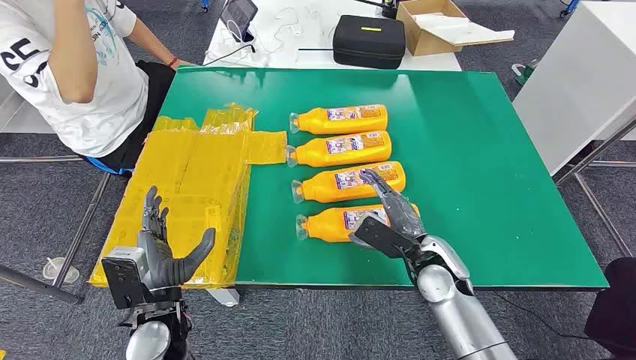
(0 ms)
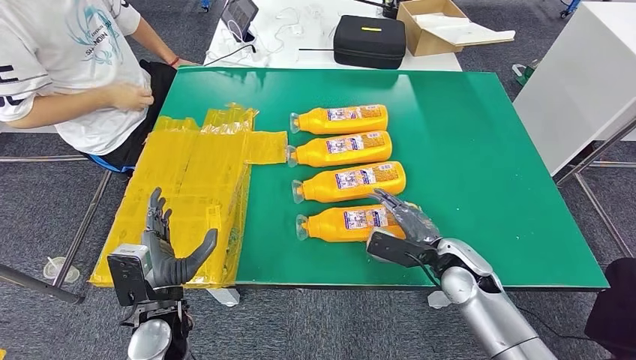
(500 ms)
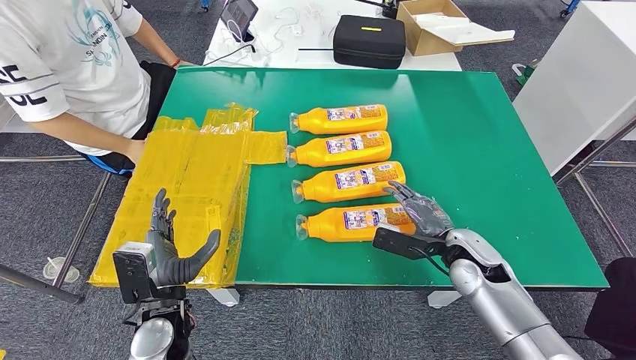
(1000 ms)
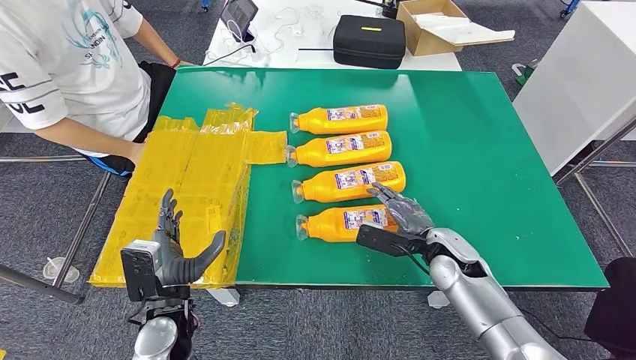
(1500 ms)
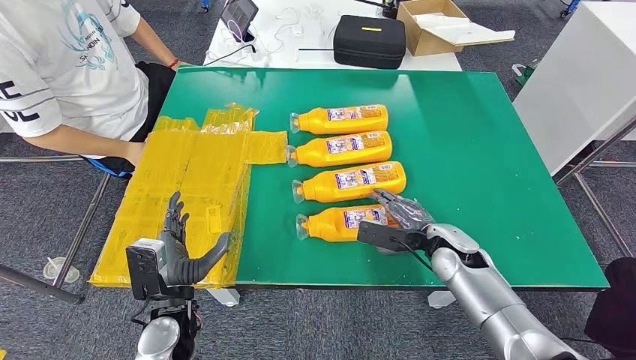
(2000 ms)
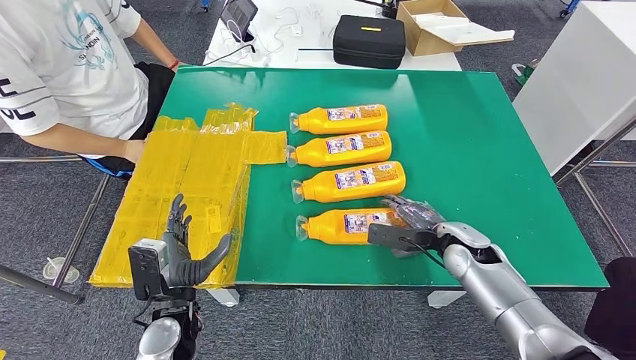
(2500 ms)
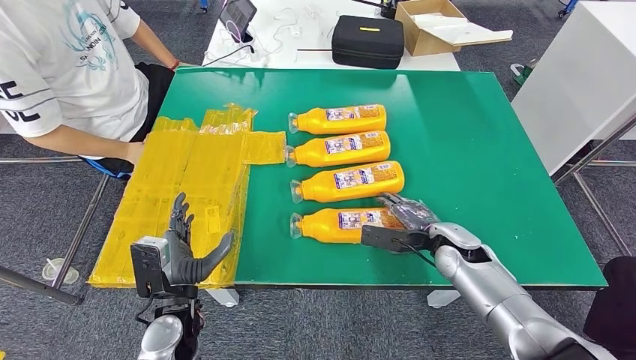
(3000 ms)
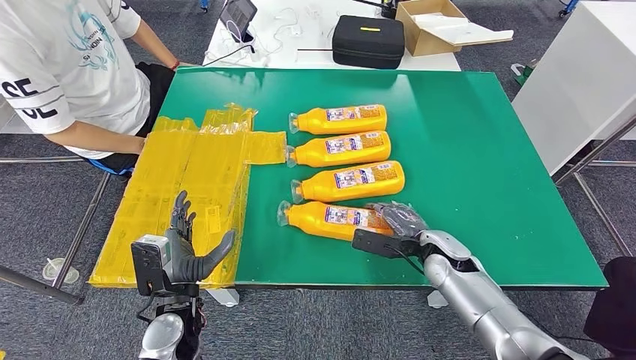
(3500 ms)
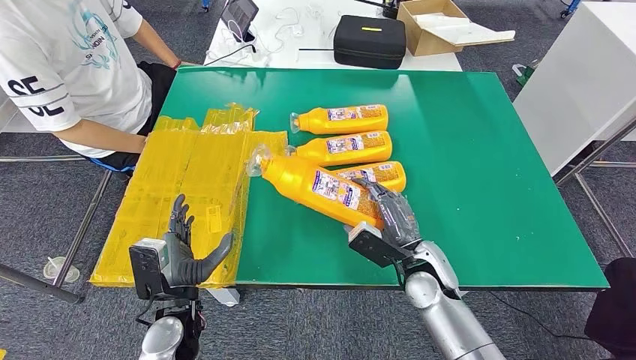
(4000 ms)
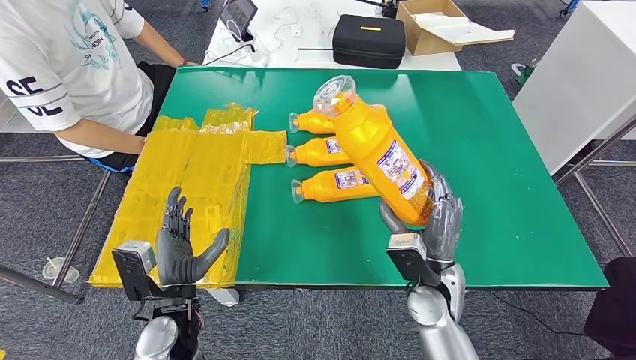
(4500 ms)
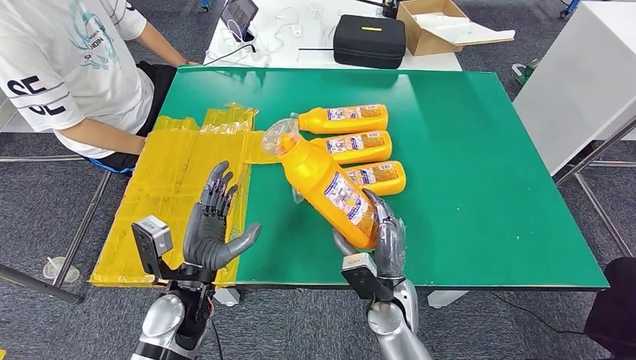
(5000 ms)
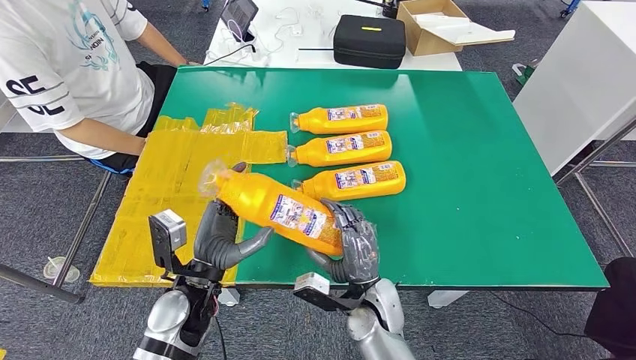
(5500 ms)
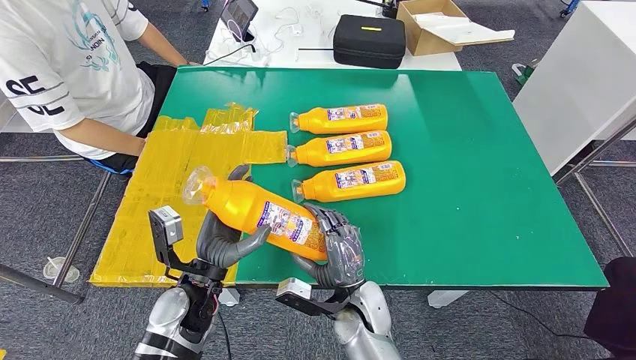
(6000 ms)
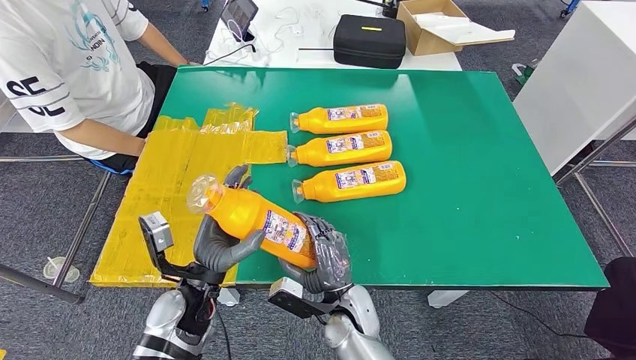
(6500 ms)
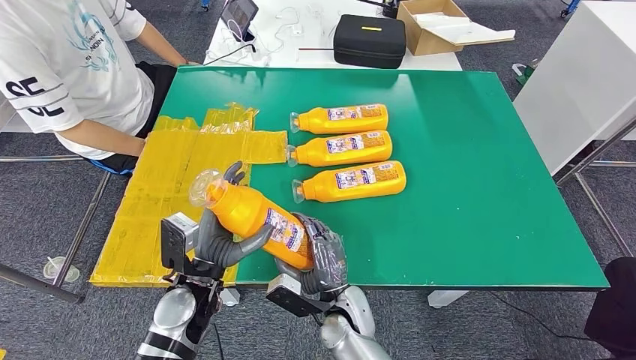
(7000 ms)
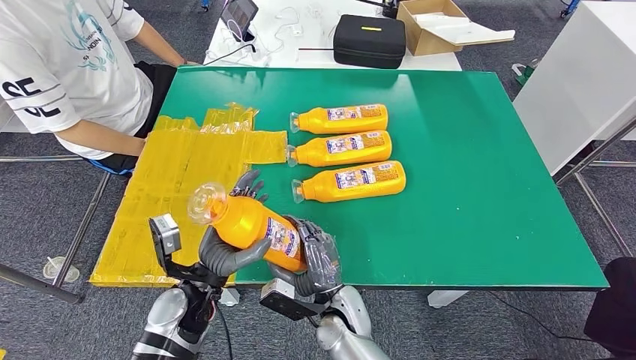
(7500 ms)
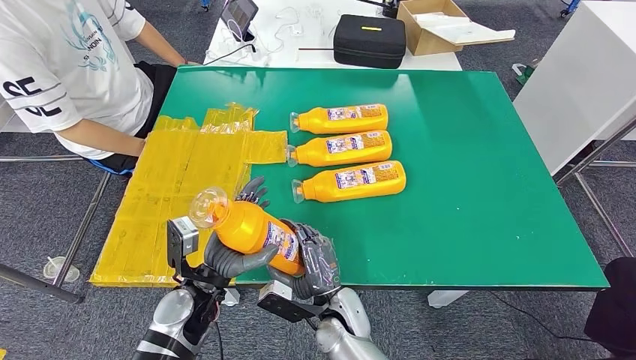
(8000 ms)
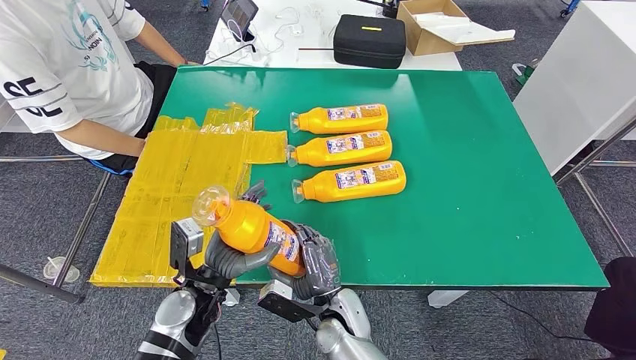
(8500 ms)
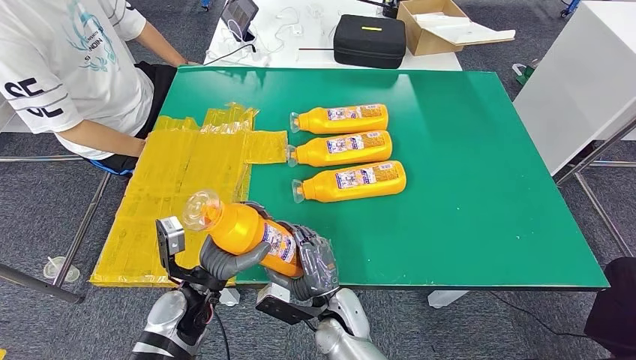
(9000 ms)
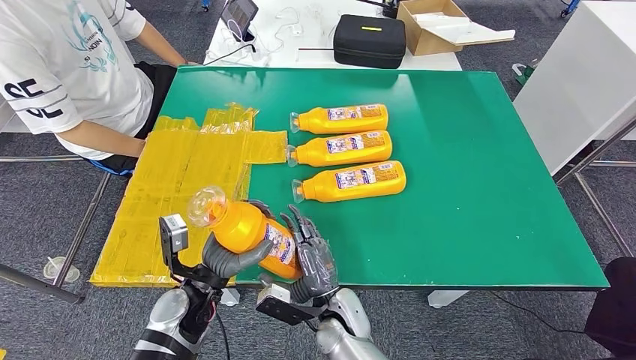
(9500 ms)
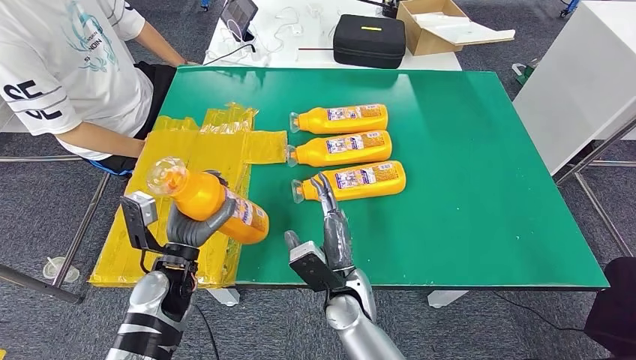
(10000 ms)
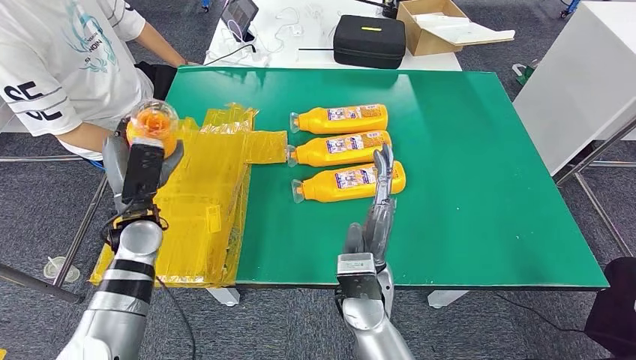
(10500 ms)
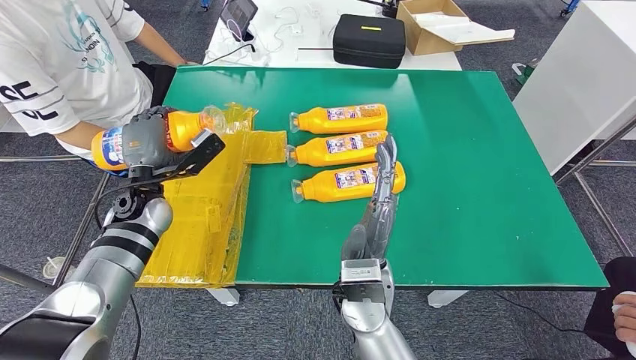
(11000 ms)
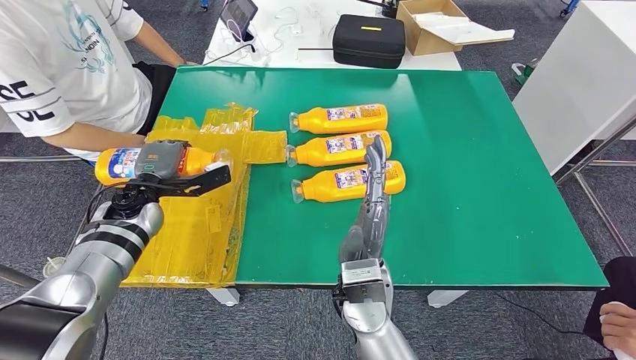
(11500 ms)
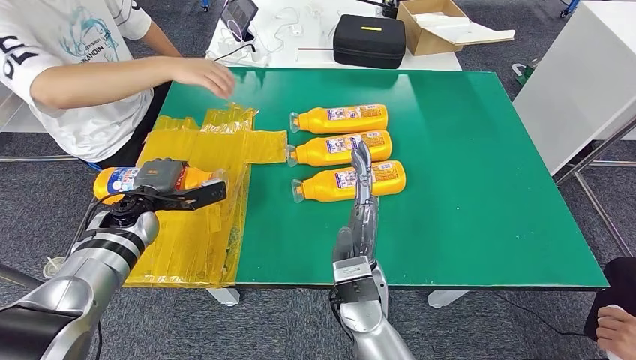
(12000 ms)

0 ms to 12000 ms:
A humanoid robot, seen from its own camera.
Step, 0 ms to 6500 ms: Take the fast-moving consumer goods bottle from the table.
2000 ms to 4000 ms: The right hand goes about 5 cm to the left.
4000 ms to 6000 ms: The left hand moves roughly 5 cm. Meanwhile the right hand travels to the left by roughly 10 cm.
6000 ms to 8000 ms: The hands move only a little.
8000 ms to 10000 ms: The left hand shifts by about 5 cm. The right hand moves approximately 5 cm.

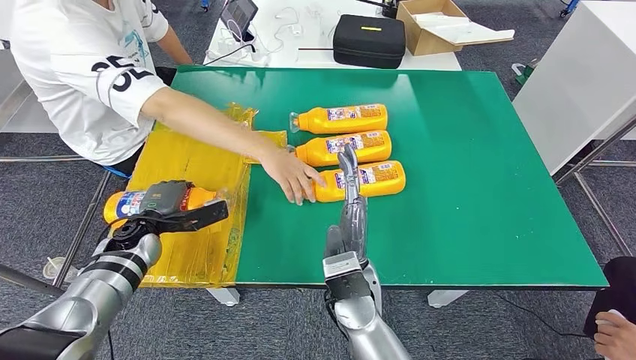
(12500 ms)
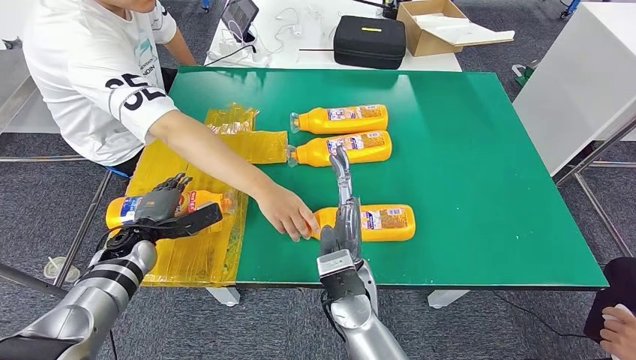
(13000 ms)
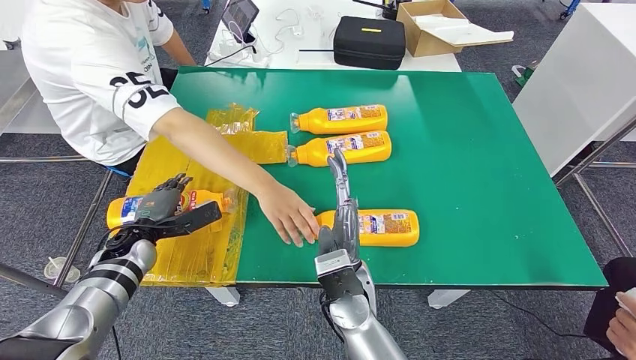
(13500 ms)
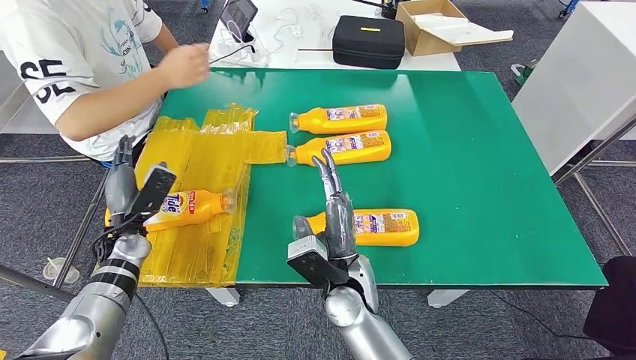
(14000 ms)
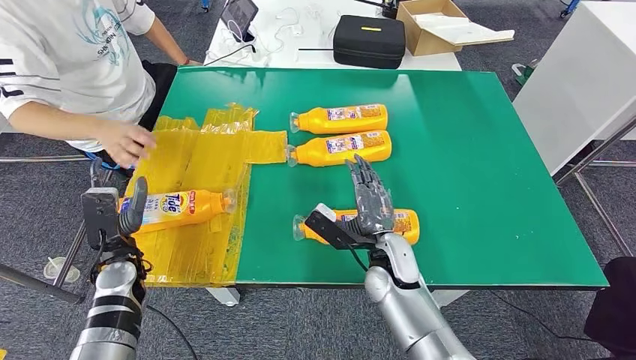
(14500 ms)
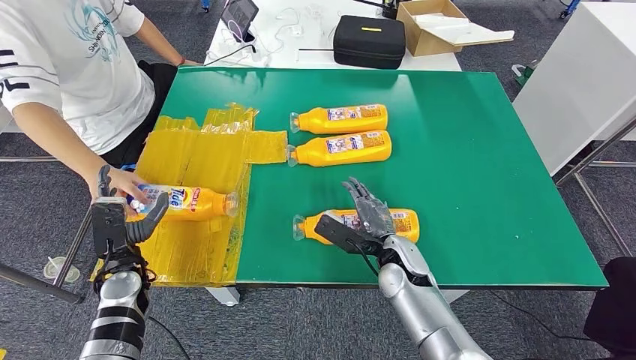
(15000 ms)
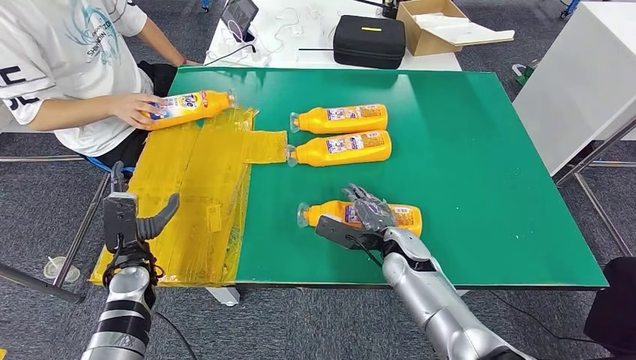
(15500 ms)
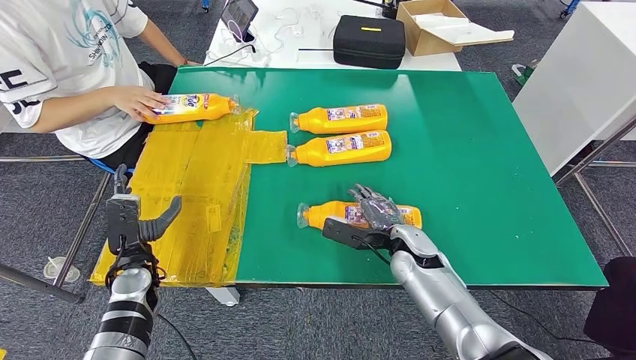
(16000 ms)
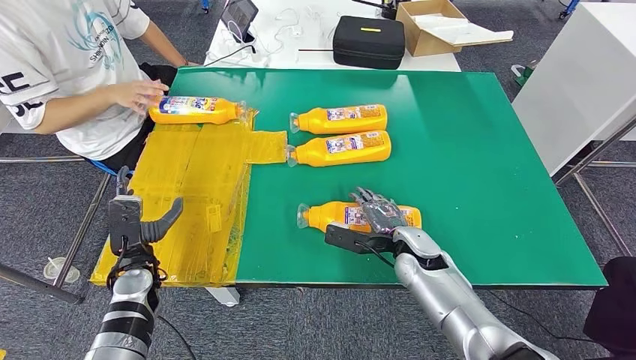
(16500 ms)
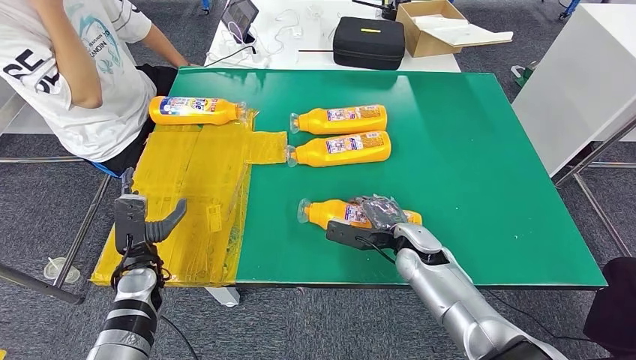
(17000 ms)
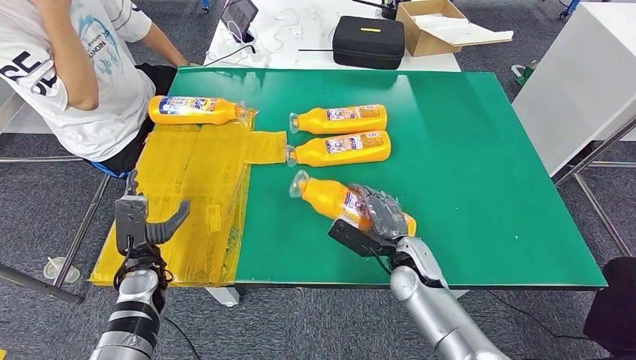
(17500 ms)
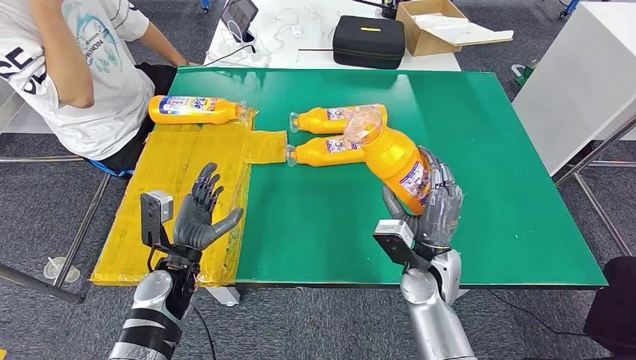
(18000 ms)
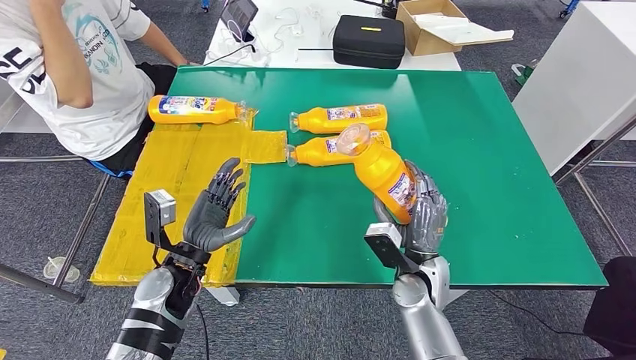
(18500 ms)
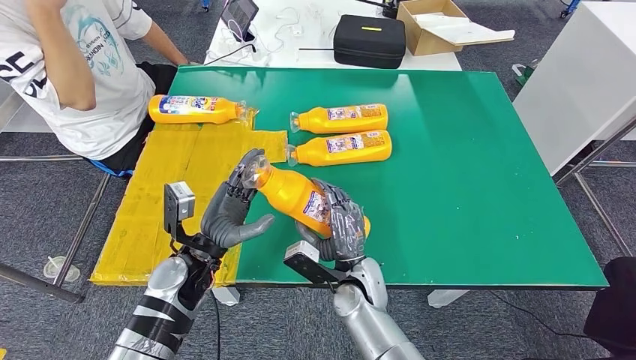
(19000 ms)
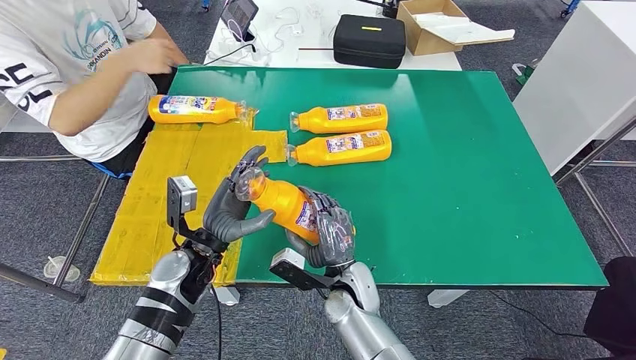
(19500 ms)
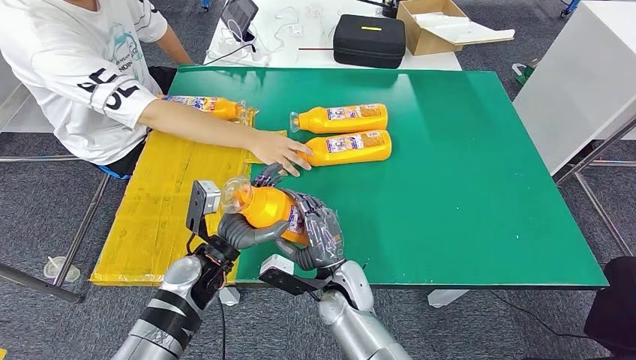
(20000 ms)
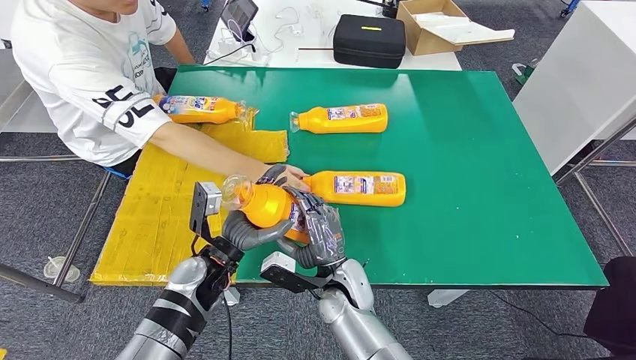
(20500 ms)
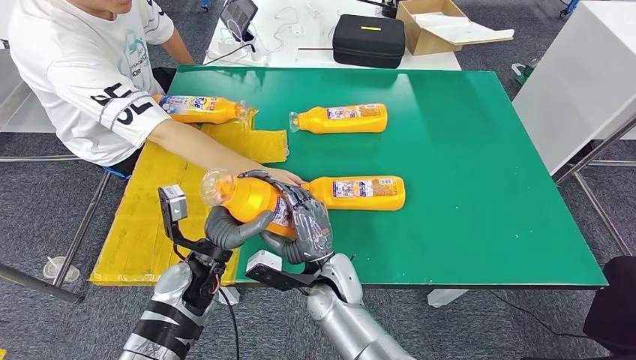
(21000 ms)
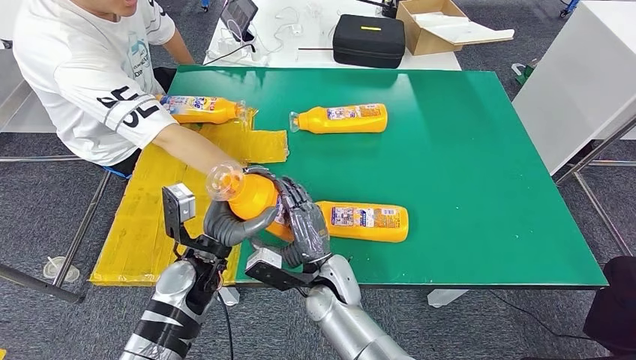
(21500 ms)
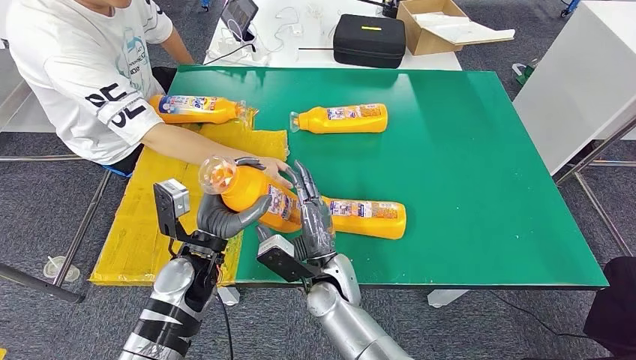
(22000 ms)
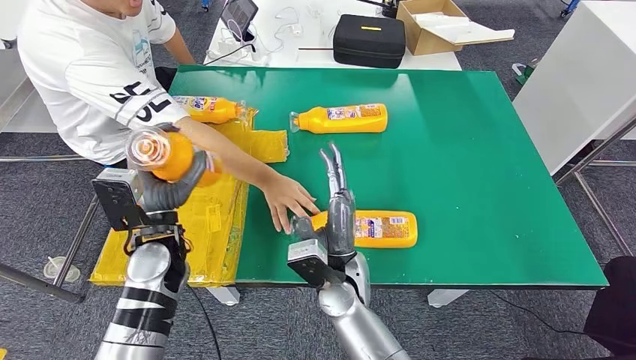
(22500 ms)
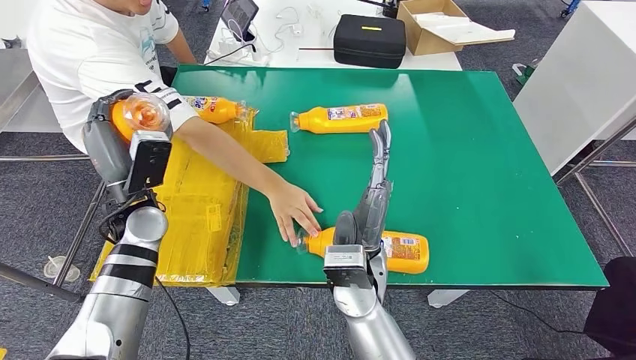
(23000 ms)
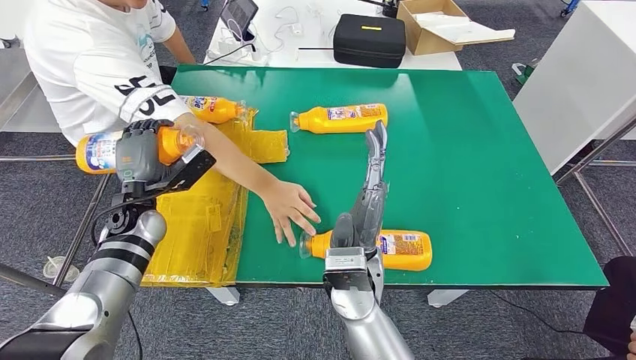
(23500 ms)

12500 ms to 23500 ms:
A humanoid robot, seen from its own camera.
Step, 12500 ms to 15000 ms: Flip the fast-moving consumer goods bottle to the front side.
Step, 15500 ms to 20000 ms: Pick up the fast-moving consumer goods bottle from the table.
14500 ms to 16000 ms: The right hand travels to the right by about 5 cm.
20000 ms to 21500 ms: The hands move only a little.
